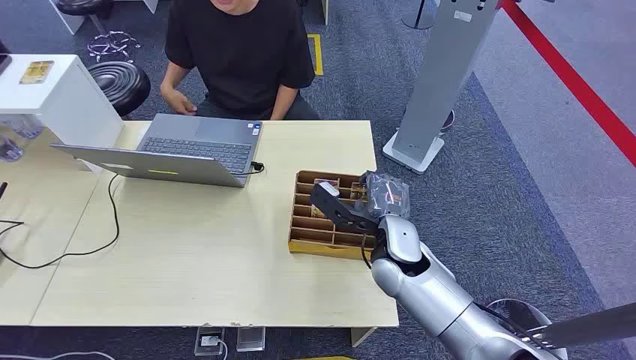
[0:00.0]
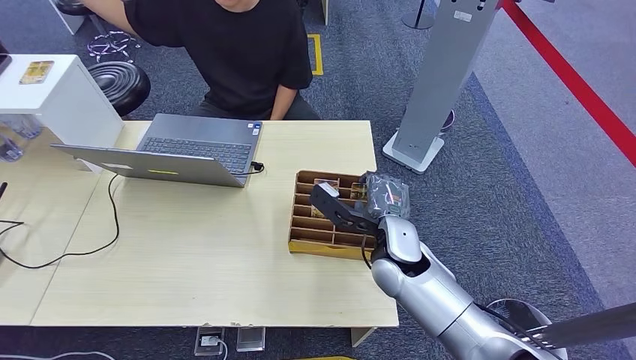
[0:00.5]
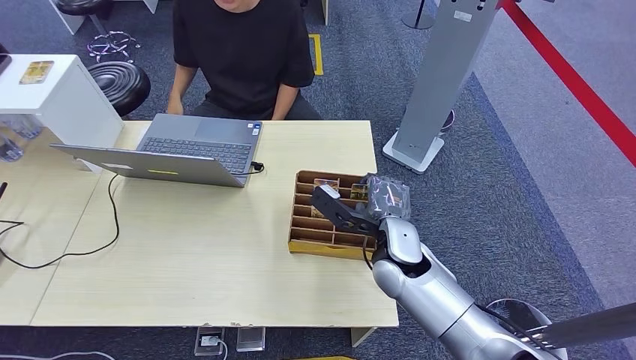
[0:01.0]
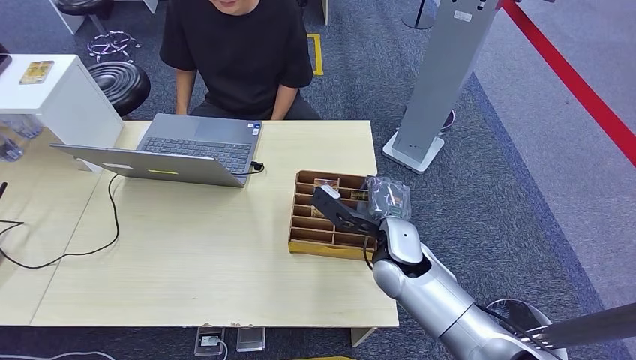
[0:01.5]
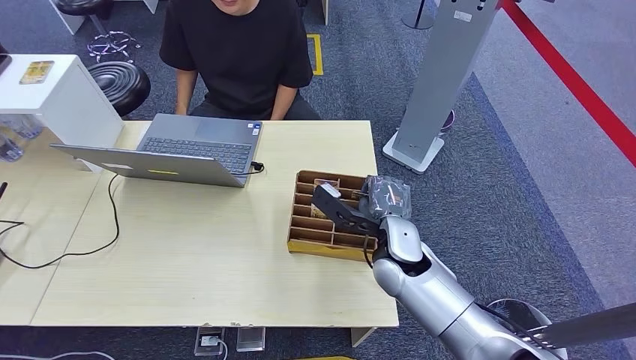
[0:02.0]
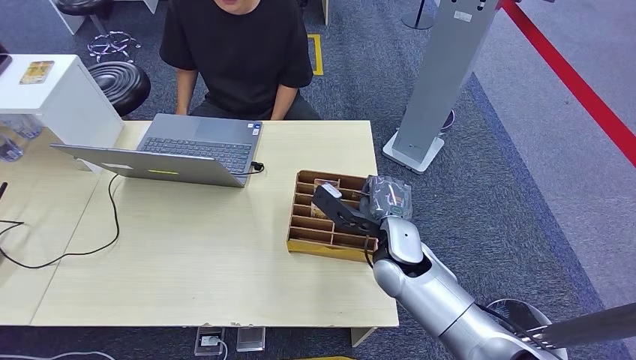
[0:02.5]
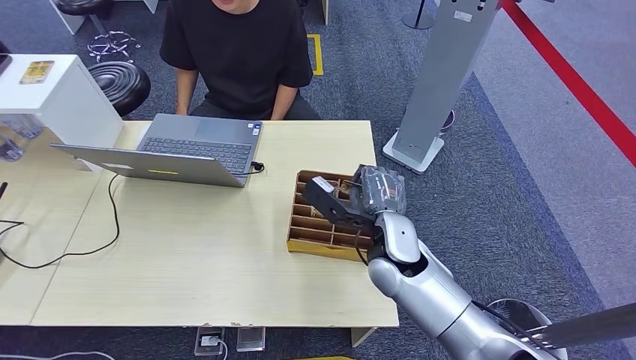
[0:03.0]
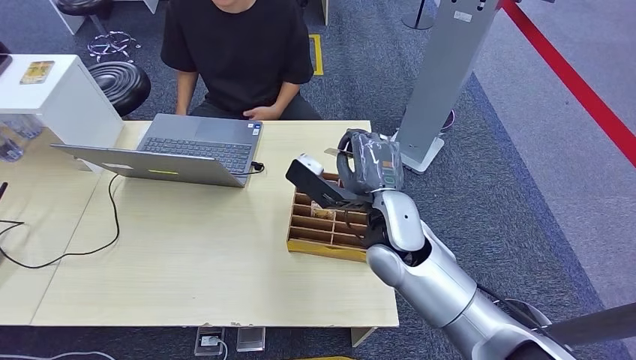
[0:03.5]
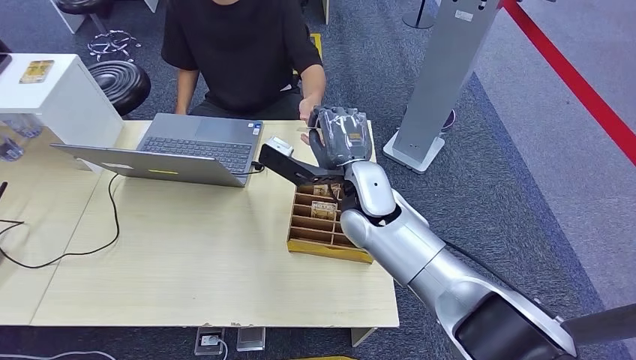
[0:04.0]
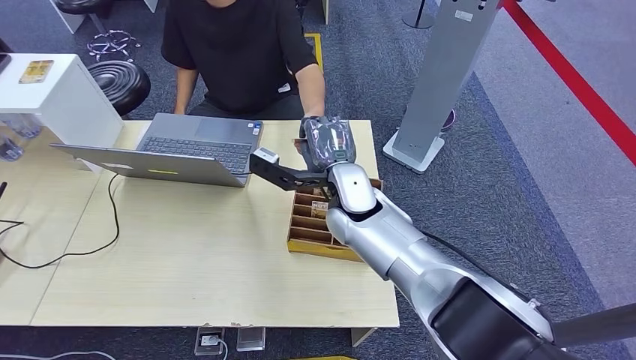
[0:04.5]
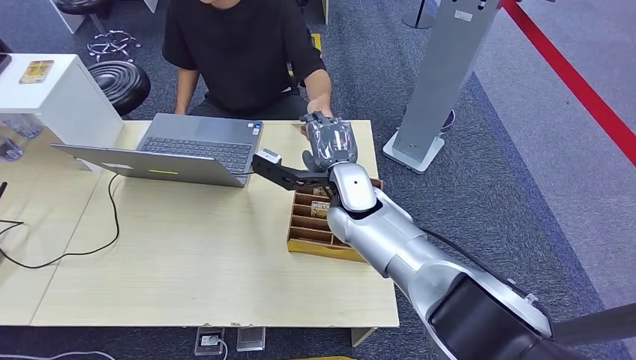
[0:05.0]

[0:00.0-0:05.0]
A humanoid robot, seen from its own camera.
Step, 0:00.0 to 0:03.0: Pick up the key card from the card box.
Step, 0:03.5 to 0:05.0: Hand the key card to the target.
0:02.5 to 0:05.0: The right hand heads to the left, forward and upward, covering approximately 10 cm.

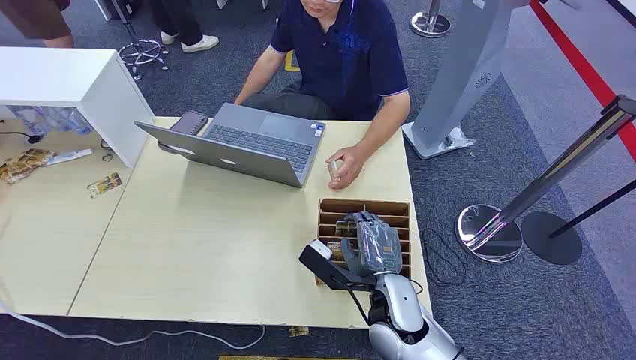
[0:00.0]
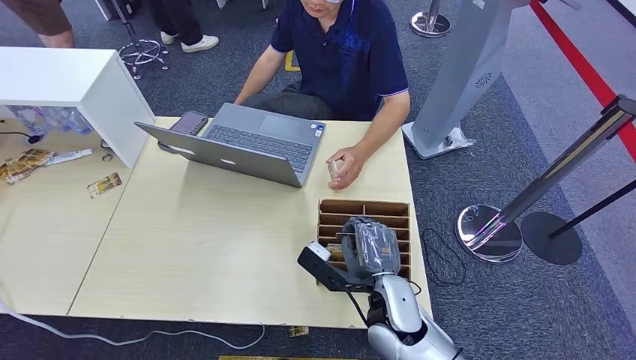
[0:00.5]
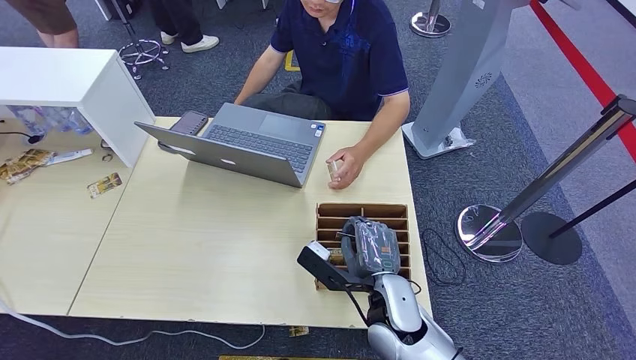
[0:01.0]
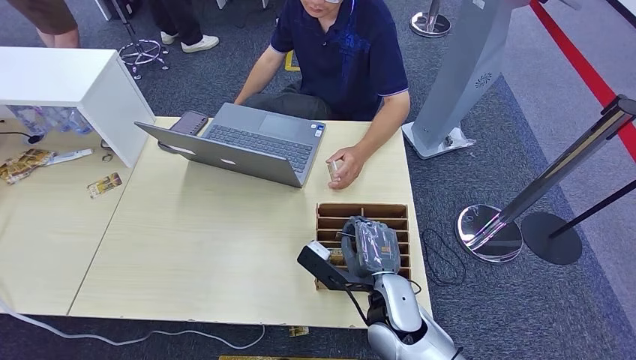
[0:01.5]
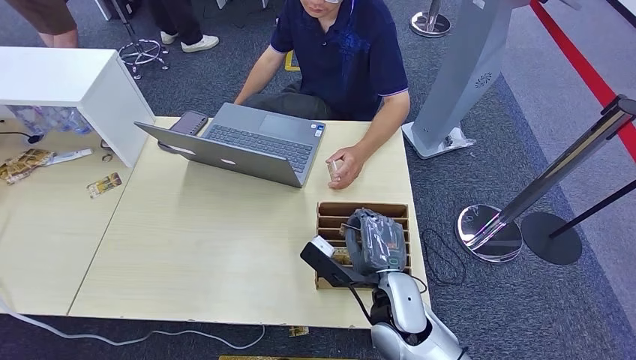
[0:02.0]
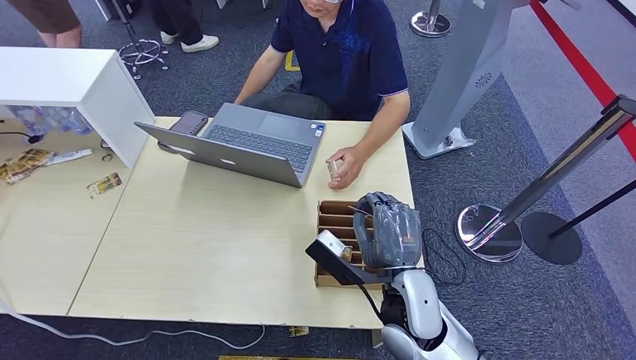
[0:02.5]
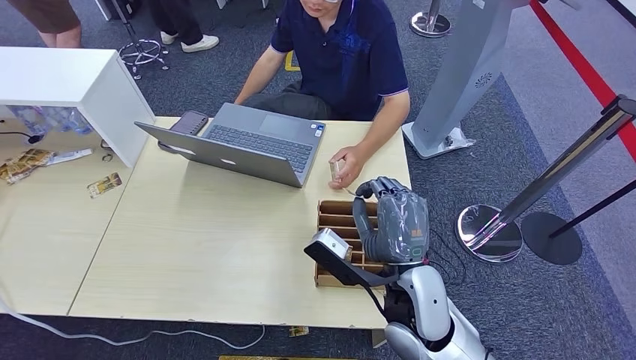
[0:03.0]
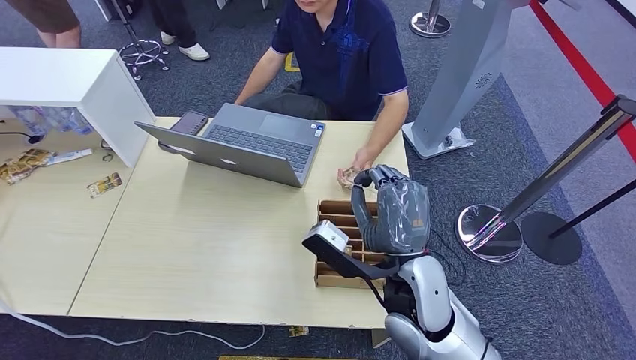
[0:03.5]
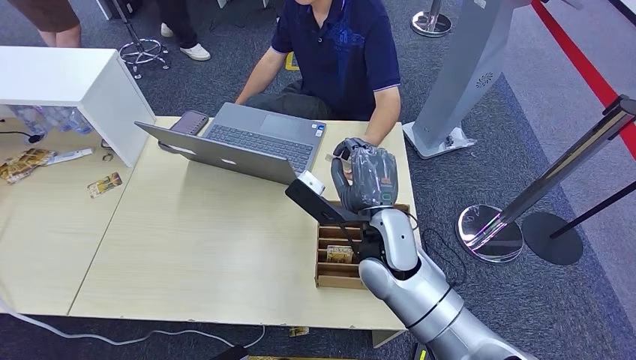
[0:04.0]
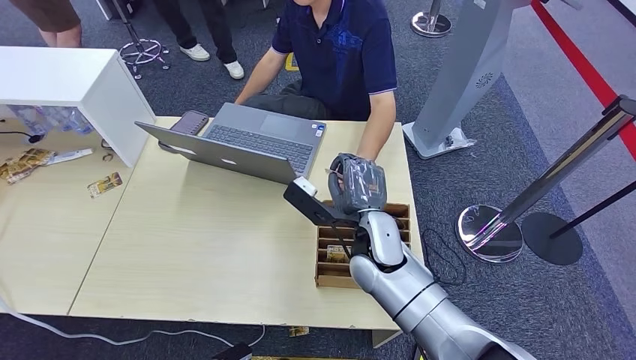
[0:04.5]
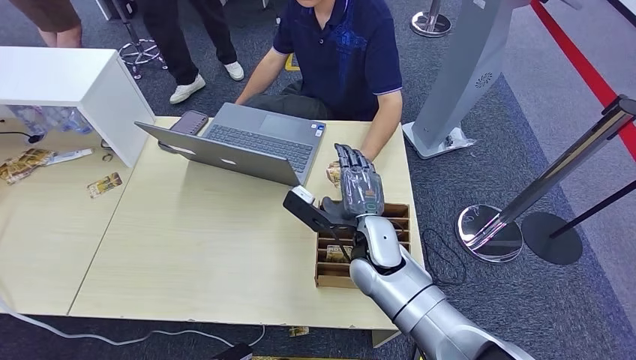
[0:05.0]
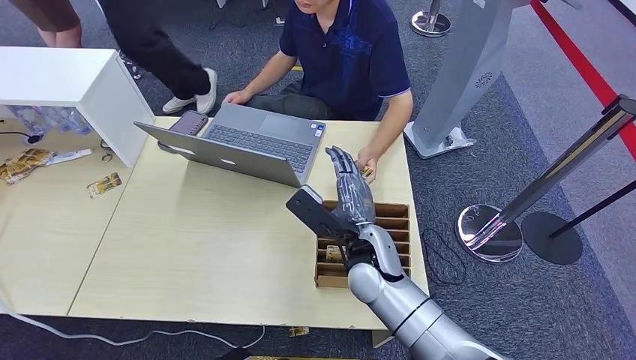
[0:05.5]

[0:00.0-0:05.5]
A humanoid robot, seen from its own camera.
Step, 0:00.0 to 0:03.0: Pick up the key card from the card box.
Step, 0:03.5 to 0:05.5: Hand the key card to the target.
0:02.0 to 0:03.5: The right hand shifts about 10 cm upward.
0:03.5 to 0:05.5: The right hand heads forward and downward, covering roughly 10 cm.
